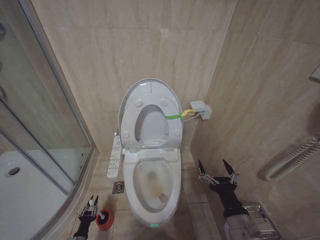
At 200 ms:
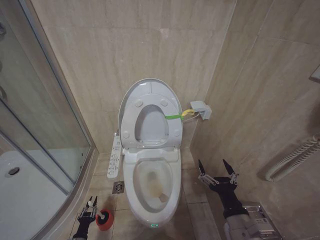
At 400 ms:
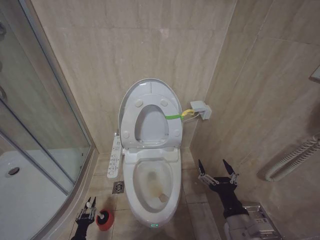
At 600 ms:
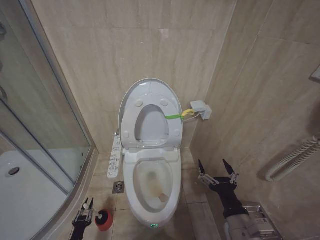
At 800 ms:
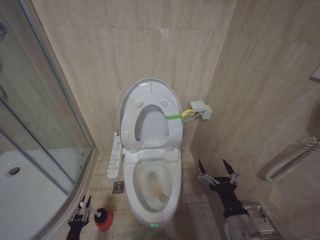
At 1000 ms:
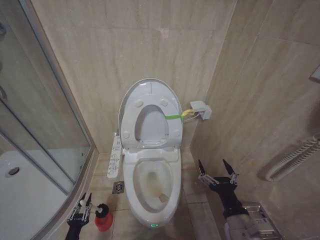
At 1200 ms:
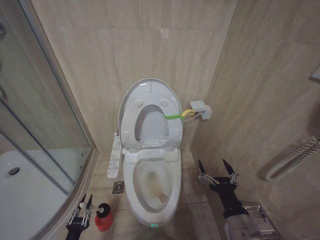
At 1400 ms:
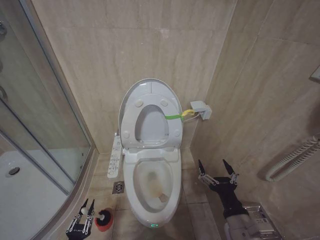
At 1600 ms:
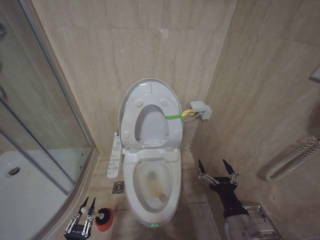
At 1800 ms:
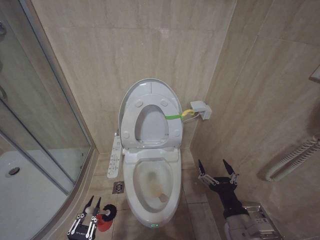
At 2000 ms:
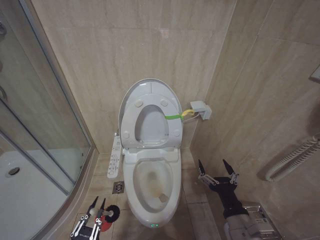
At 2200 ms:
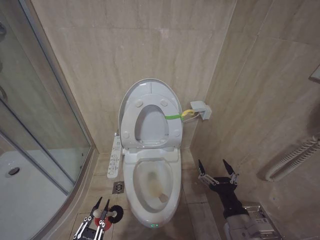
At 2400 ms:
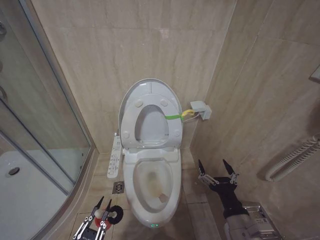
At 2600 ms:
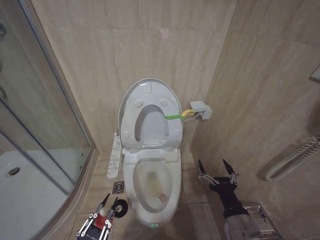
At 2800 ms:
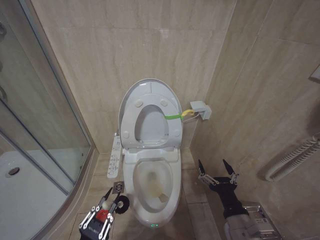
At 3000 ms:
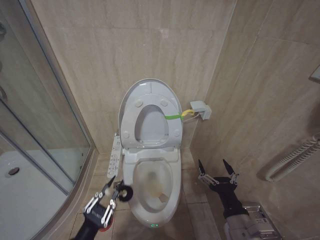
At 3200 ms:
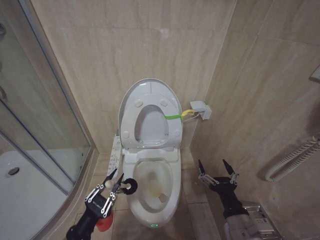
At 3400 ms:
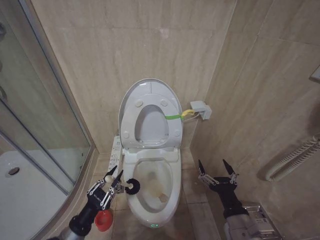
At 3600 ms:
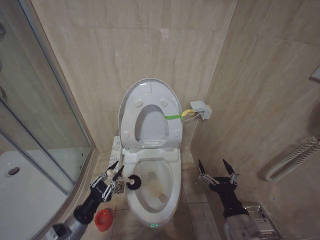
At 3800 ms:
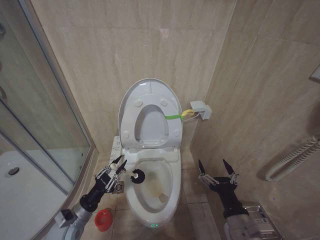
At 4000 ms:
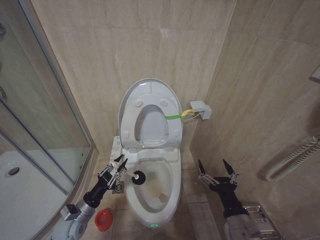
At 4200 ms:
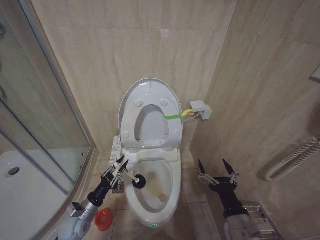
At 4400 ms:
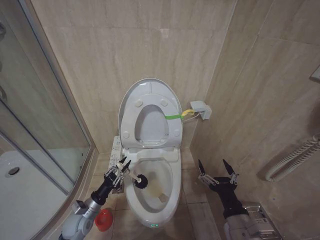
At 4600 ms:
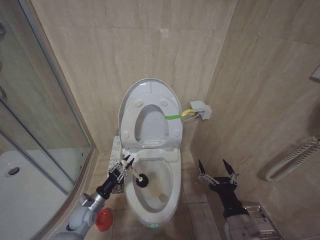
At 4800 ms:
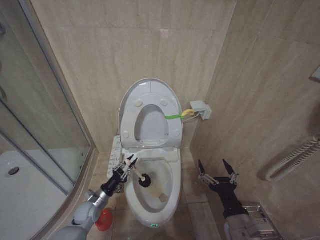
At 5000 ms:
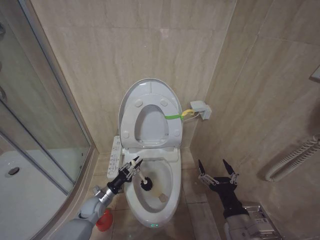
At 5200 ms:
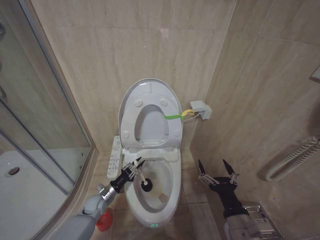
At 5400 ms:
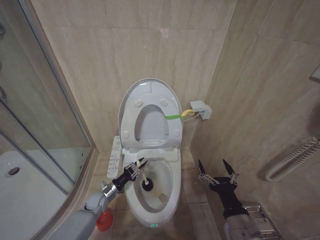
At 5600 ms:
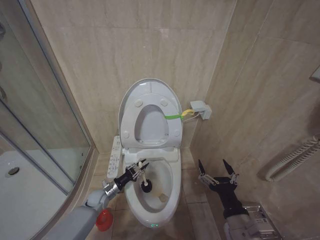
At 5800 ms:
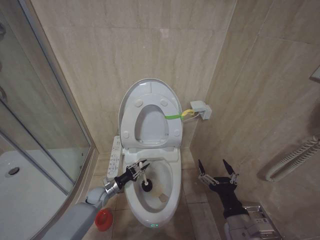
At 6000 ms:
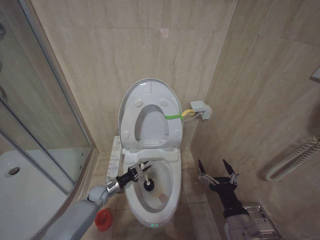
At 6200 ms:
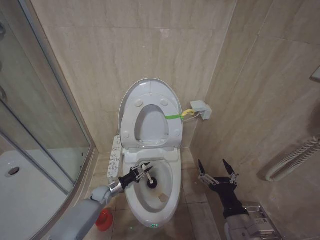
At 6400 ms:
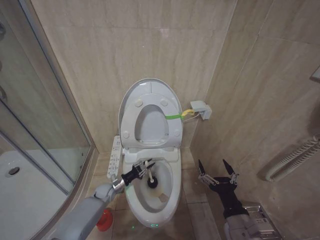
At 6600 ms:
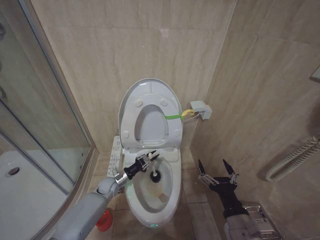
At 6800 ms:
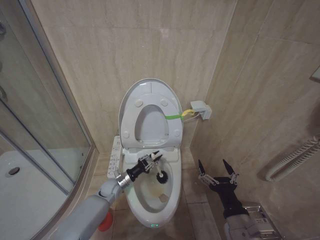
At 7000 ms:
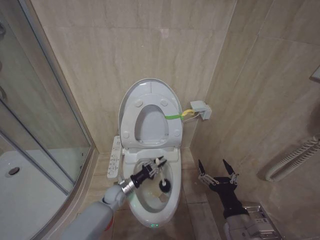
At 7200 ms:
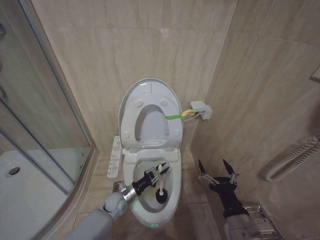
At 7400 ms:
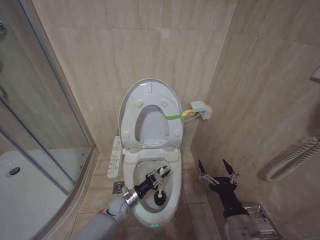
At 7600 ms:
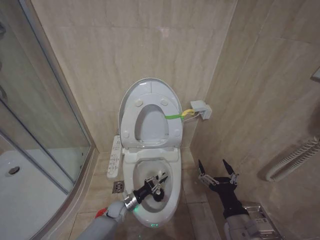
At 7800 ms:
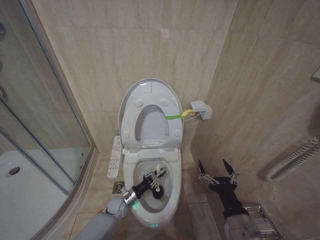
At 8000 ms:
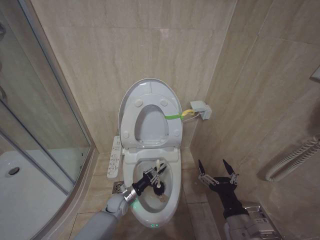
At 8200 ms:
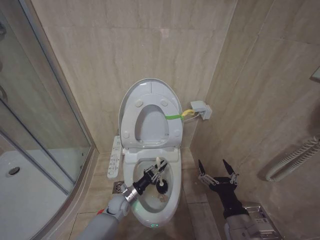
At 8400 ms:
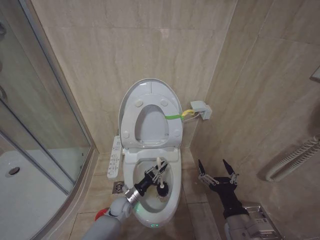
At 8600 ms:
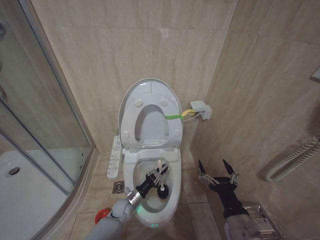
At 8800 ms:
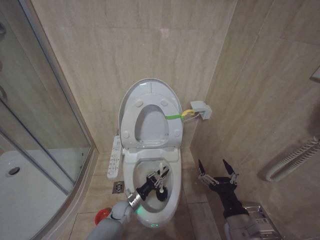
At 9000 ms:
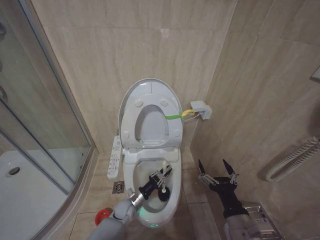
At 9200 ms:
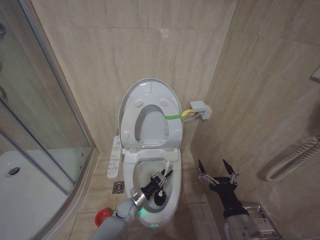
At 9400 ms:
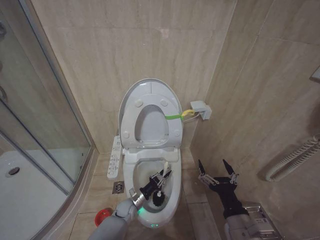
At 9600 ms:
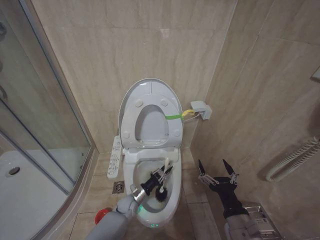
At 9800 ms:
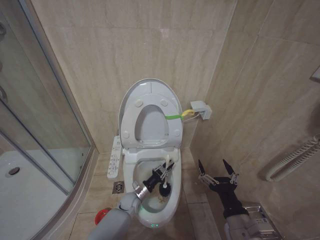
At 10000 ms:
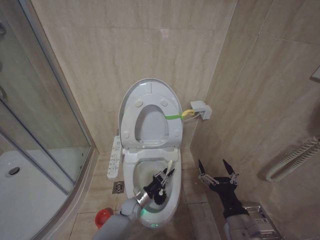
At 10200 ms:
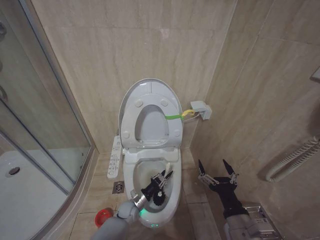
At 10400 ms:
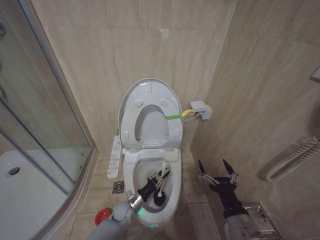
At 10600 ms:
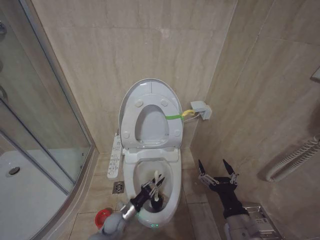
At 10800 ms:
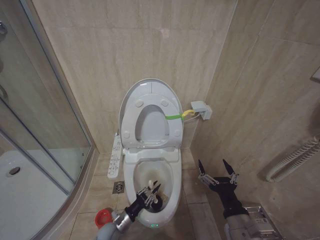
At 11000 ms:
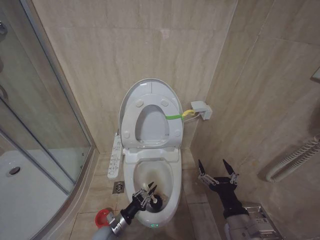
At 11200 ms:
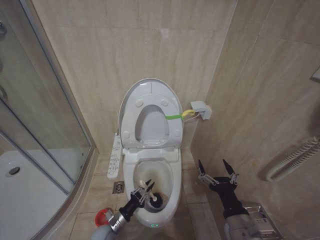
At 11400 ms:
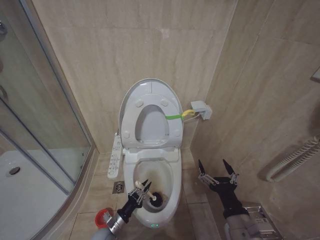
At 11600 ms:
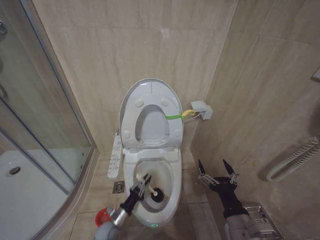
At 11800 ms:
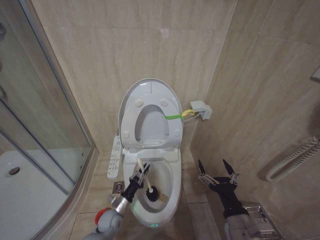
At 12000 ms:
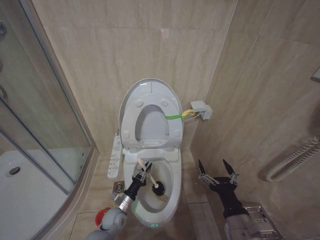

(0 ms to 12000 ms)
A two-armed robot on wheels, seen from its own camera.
Task of the whole recording: Open the toilet lid, clean the toilet bowl with a toilet brush, close the toilet lid, and flush.
0 ms - 1600 ms: The left gripper shifts roughly 20 cm upward and backward.
1600 ms - 3000 ms: The left gripper travels upward by roughly 15 cm.
3000 ms - 4400 ms: The left gripper is displaced forward and downward by some 20 cm.
4400 ms - 6000 ms: The left gripper travels forward and downward by roughly 15 cm.
6000 ms - 7600 ms: The left gripper moves to the right, approximately 10 cm.
7600 ms - 9000 ms: The grippers stay close to where they were, moving slightly.
10400 ms - 12000 ms: The left gripper moves to the left, approximately 5 cm.

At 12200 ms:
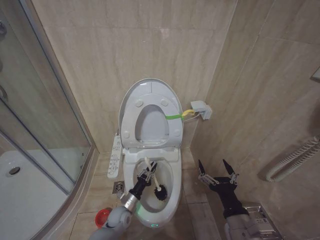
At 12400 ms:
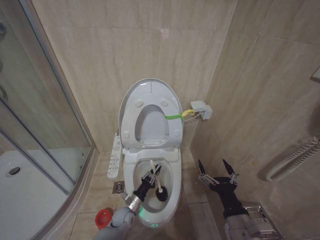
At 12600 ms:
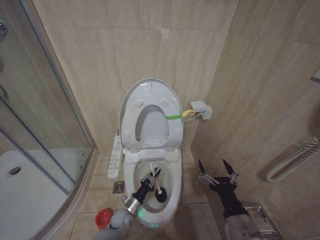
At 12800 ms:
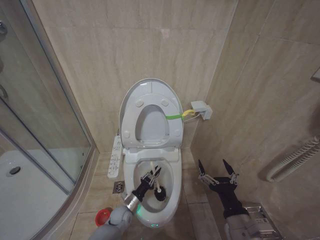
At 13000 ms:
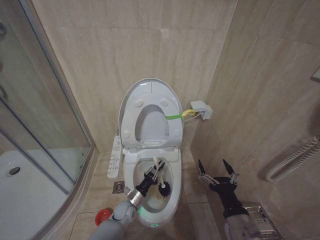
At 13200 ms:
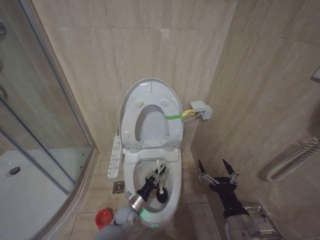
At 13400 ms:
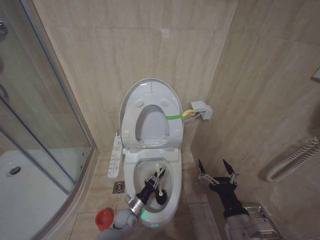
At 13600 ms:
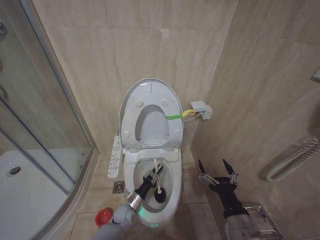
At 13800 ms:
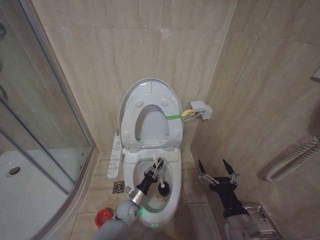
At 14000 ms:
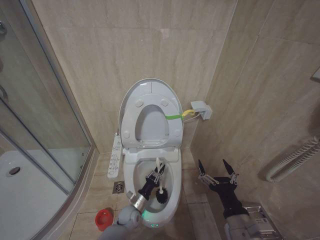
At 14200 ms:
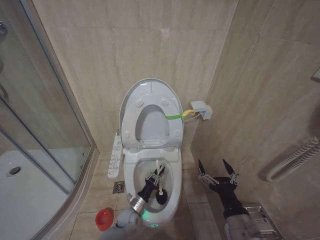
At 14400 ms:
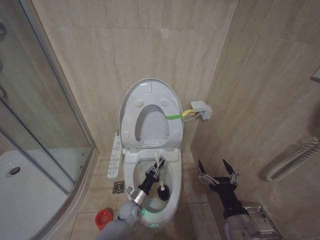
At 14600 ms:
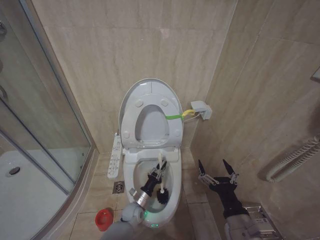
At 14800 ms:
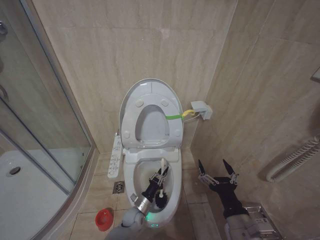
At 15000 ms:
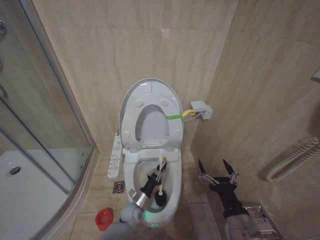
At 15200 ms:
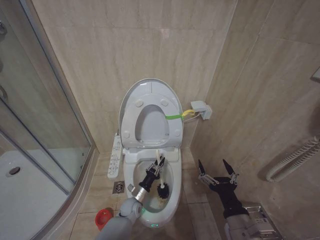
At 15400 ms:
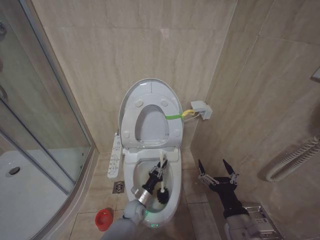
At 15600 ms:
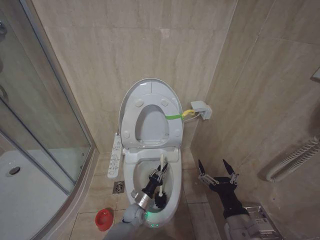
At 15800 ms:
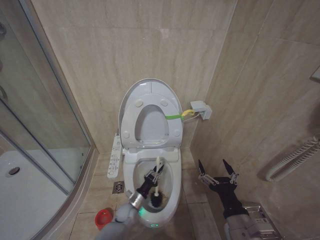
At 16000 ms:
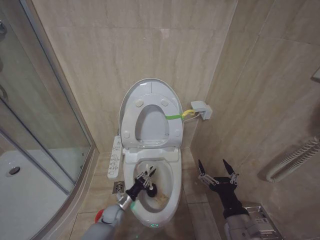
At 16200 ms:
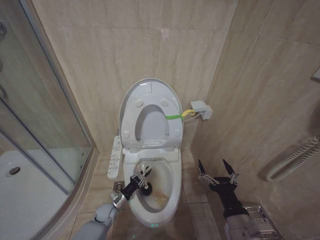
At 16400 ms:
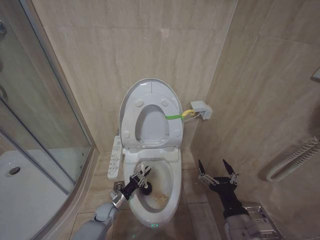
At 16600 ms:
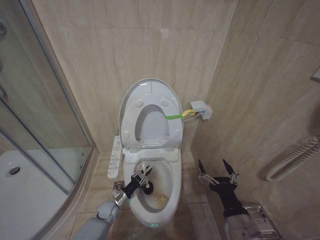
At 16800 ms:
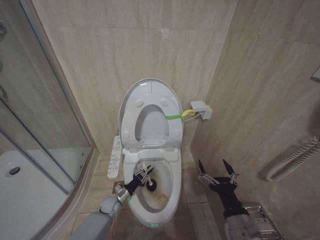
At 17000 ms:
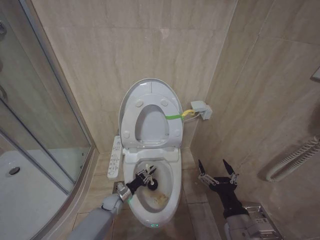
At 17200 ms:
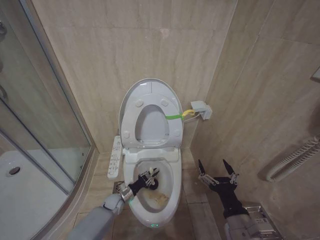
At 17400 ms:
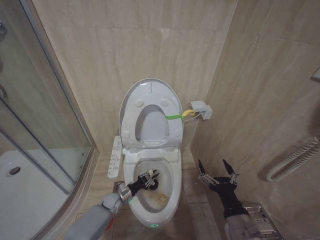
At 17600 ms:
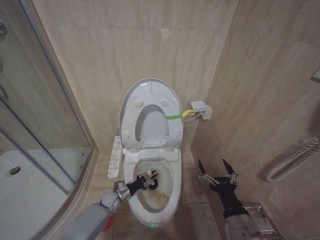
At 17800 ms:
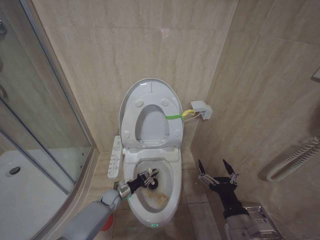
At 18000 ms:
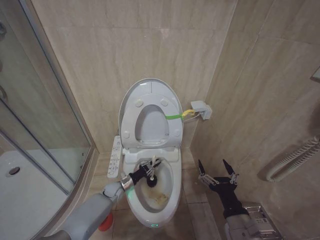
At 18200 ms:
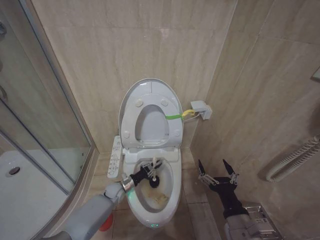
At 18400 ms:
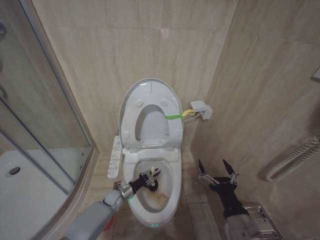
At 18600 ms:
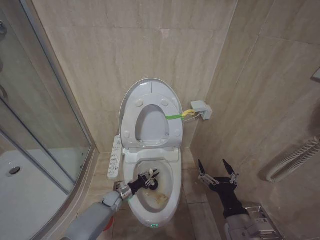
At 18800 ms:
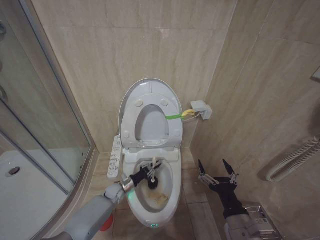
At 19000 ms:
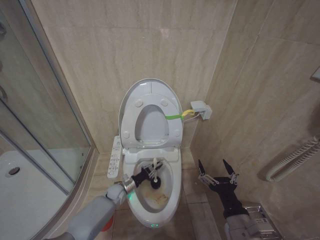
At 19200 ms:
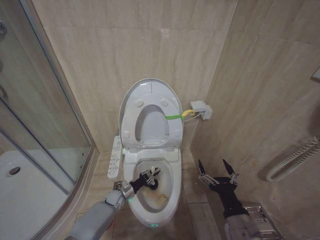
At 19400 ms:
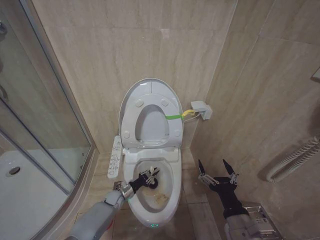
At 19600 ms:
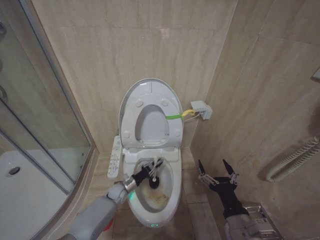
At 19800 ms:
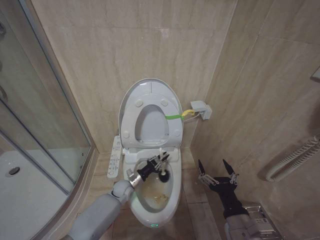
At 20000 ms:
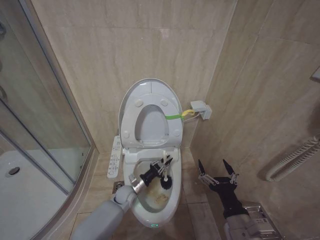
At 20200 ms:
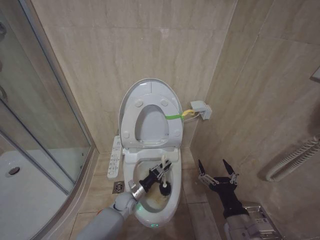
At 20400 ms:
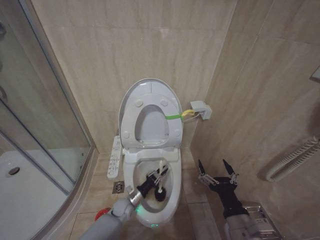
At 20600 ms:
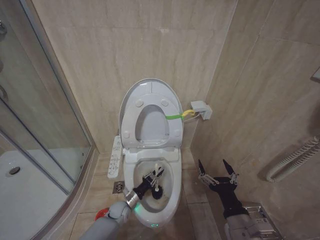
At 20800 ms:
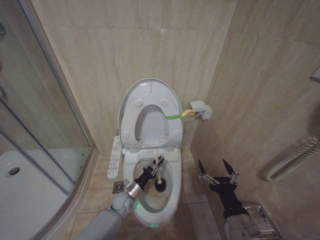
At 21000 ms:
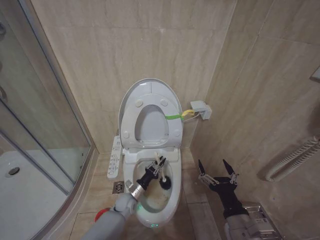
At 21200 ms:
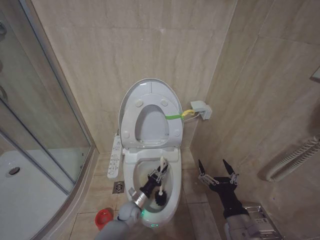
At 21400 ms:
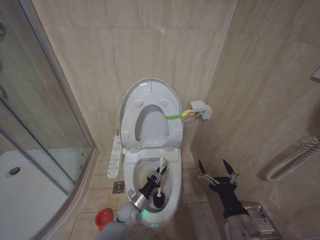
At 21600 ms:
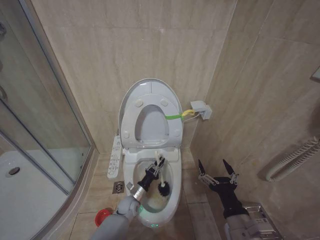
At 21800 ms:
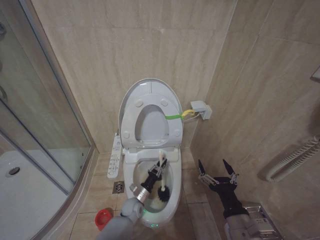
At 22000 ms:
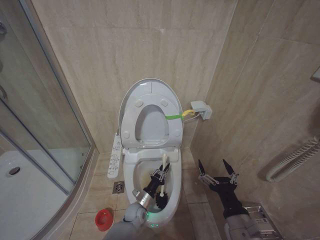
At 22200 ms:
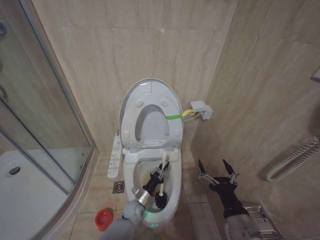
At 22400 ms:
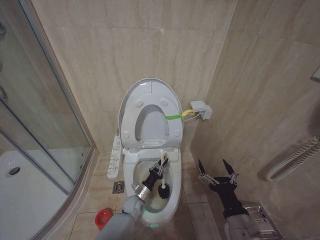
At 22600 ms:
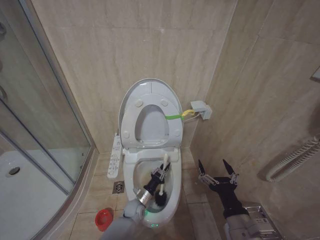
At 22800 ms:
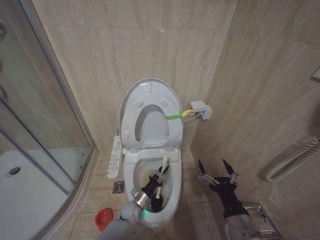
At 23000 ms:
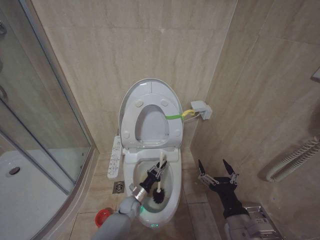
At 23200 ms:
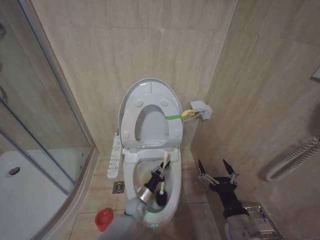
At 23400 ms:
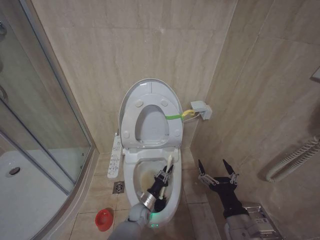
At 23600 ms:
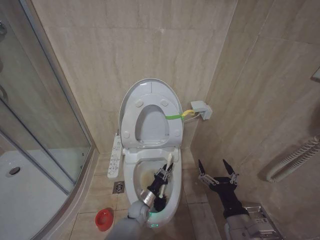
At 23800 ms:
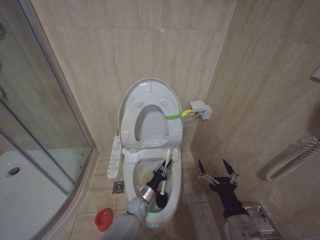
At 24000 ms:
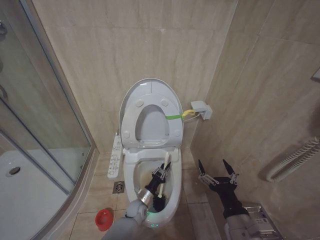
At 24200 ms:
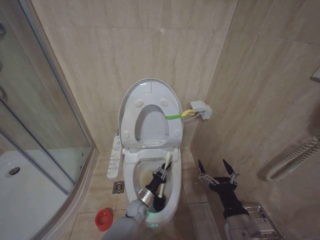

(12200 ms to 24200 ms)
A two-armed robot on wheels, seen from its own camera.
Task of the whole recording: Open the toilet lid, clean the toilet bowl with a toilet brush, close the toilet lid, and flush.
12200 ms - 13800 ms: The grippers stay close to where they were, moving slightly.
15200 ms - 16600 ms: The left gripper travels to the left by approximately 10 cm.
16600 ms - 18200 ms: The left gripper shifts some 5 cm forward.
18200 ms - 19800 ms: The left gripper swings up and down, about 10 cm each way, with 3 reversals.
19800 ms - 21200 ms: The left gripper travels backward and downward by roughly 10 cm.
